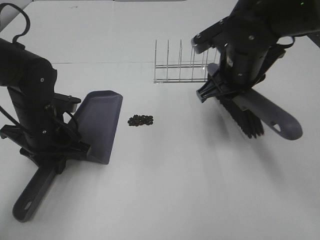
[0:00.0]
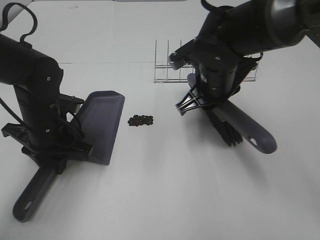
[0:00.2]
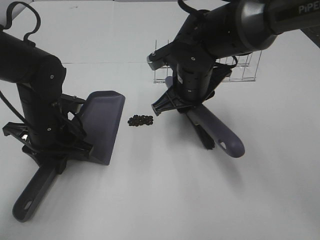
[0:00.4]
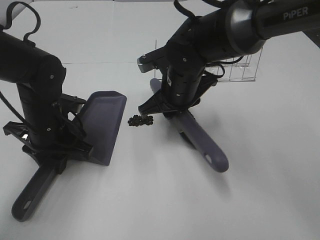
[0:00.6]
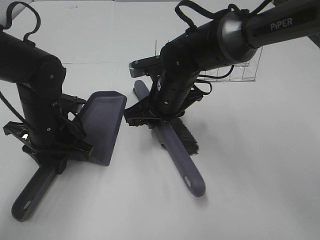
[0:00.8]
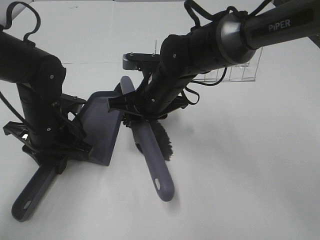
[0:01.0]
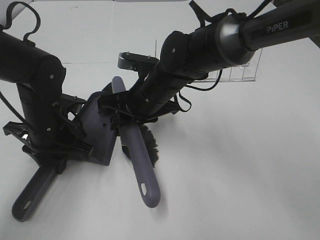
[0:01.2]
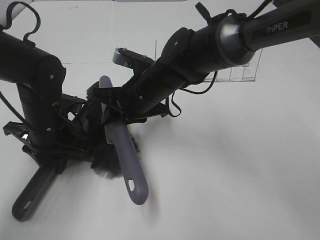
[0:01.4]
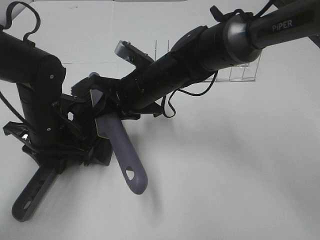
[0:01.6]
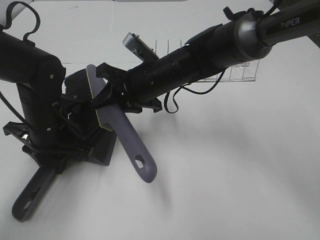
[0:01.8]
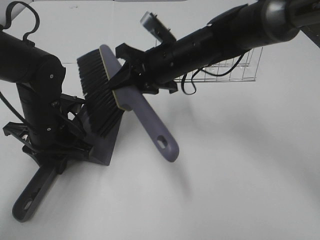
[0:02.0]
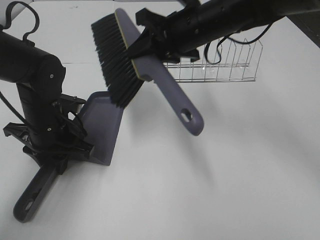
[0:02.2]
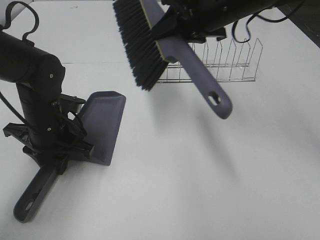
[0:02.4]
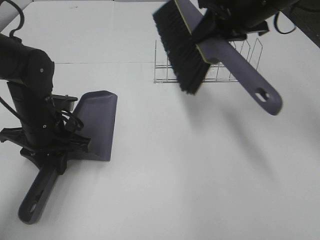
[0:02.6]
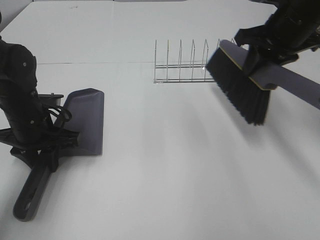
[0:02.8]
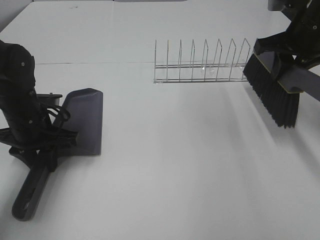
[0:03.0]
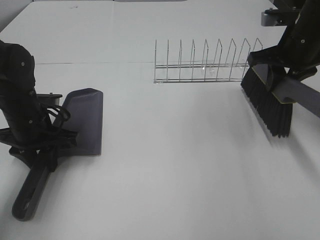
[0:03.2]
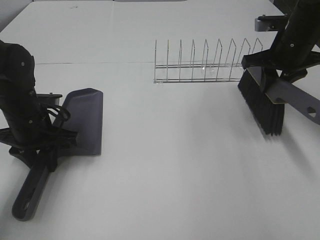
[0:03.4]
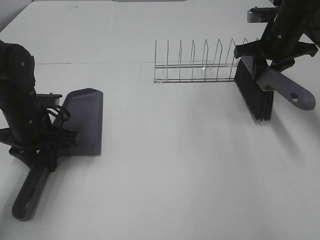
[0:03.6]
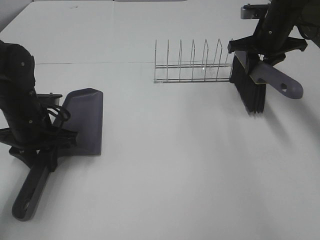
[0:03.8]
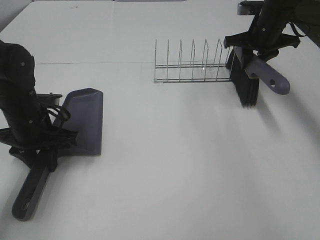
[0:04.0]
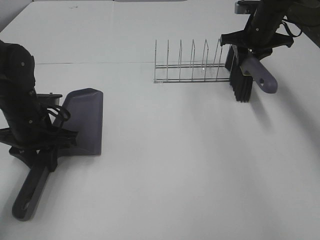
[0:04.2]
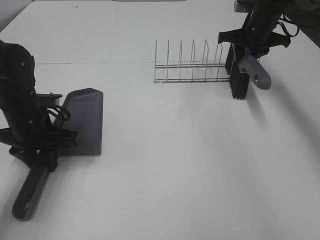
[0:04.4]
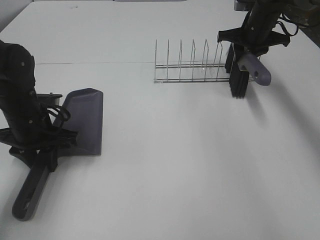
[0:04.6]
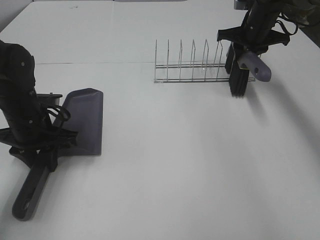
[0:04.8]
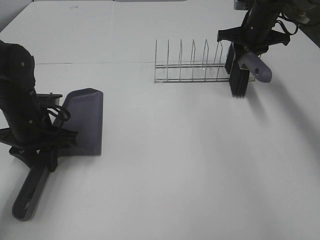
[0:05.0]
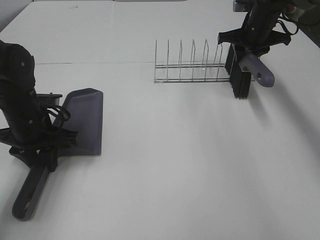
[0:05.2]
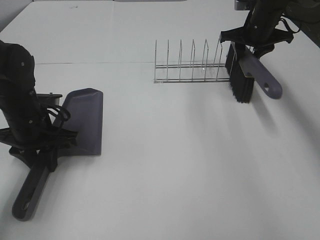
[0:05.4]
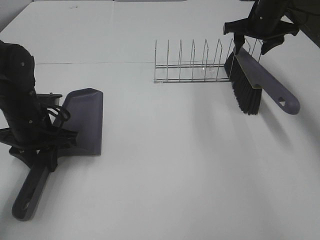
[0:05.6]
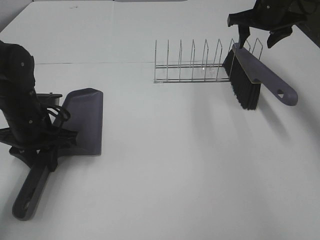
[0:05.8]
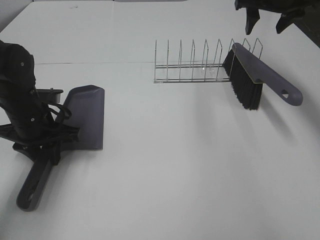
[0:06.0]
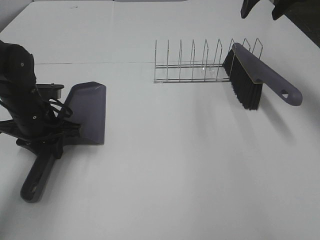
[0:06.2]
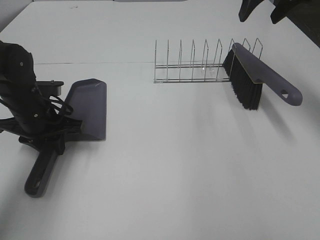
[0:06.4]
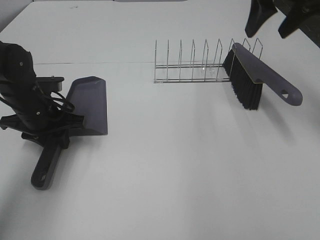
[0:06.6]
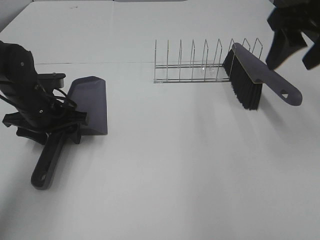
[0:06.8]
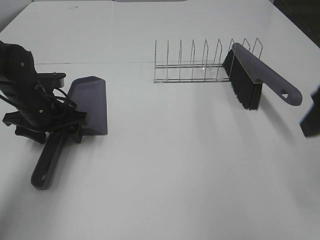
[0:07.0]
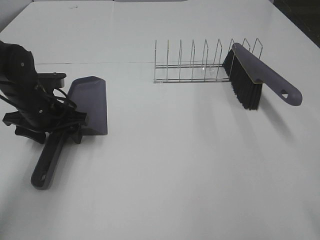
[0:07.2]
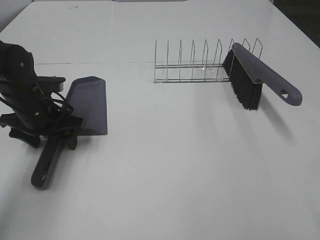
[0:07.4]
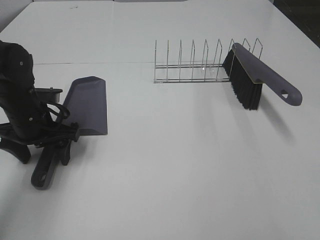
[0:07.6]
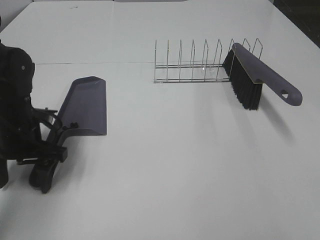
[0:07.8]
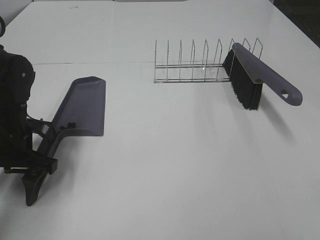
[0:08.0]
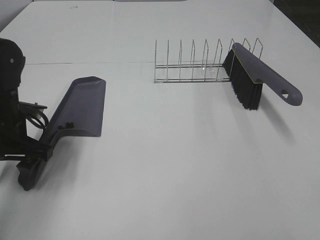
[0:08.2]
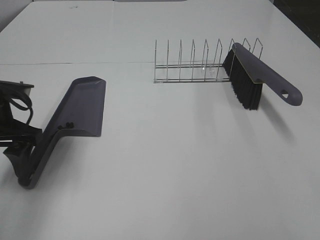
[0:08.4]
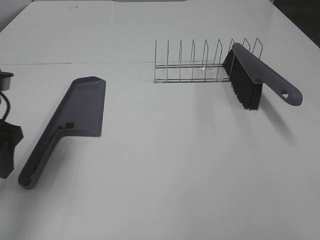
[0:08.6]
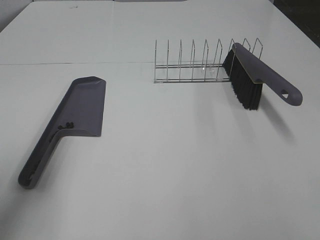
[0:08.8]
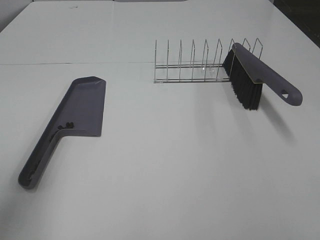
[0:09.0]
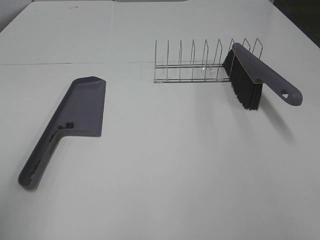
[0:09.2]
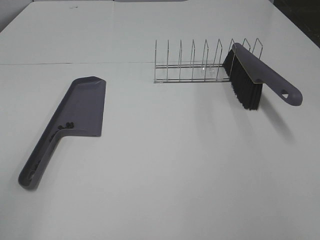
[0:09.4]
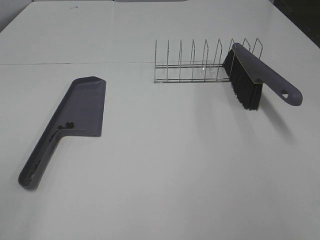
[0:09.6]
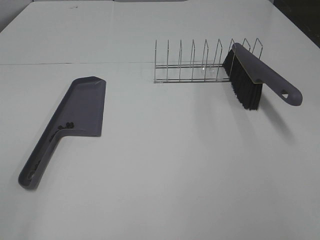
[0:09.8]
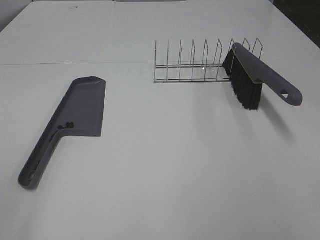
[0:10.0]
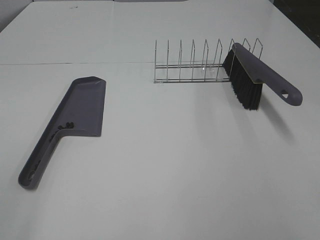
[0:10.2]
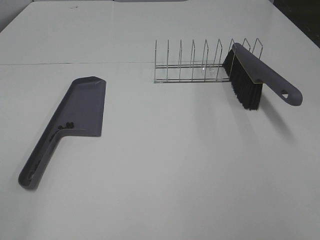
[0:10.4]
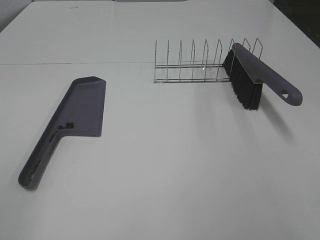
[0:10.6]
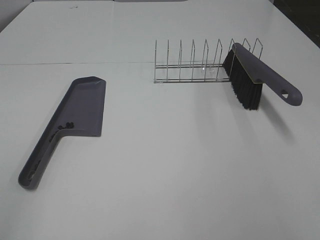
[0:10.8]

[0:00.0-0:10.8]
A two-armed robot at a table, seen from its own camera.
Task of the whole recording: Sweep Coffee Bean.
Step, 0:00.0 to 0:02.0: Right hand:sweep the coffee beans into the dustpan.
Step, 0:02.2 to 0:05.4: Right hand:place the broom on the rack.
0:00.0 to 0:01.6: The right gripper moves to the left, approximately 15 cm.
0:01.6 to 0:03.0: The right gripper moves to the right and upward, about 25 cm.
0:03.0 to 0:04.6: The right gripper heads forward and downward, covering approximately 15 cm.
0:04.6 to 0:06.2: The right gripper heads upward and backward, covering about 15 cm, and opens.
0:06.2 to 0:07.8: The right gripper travels backward by some 50 cm, while the left gripper opens up.
0:07.8 to 0:09.2: The left gripper shifts approximately 30 cm backward and upward.

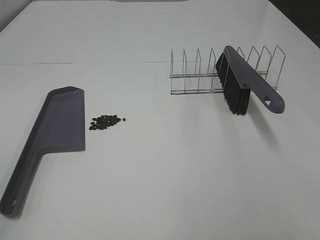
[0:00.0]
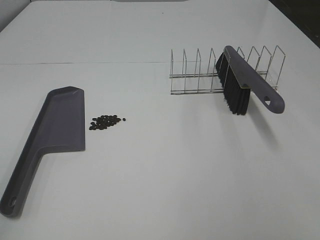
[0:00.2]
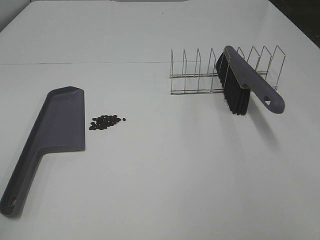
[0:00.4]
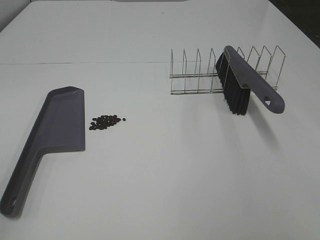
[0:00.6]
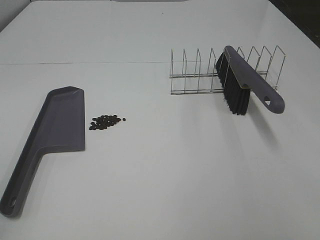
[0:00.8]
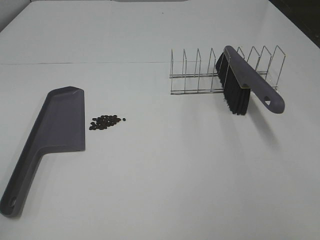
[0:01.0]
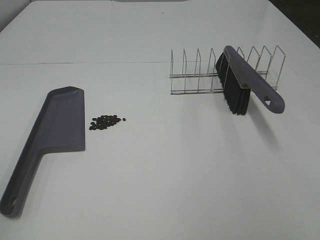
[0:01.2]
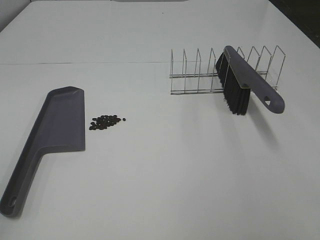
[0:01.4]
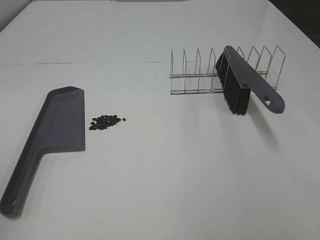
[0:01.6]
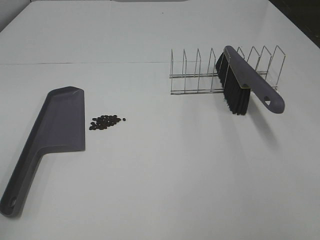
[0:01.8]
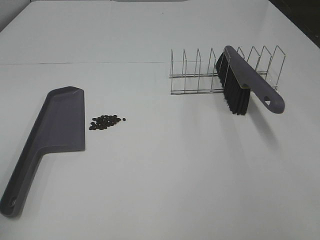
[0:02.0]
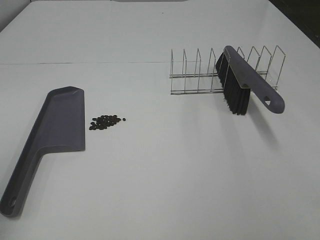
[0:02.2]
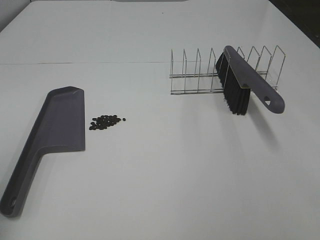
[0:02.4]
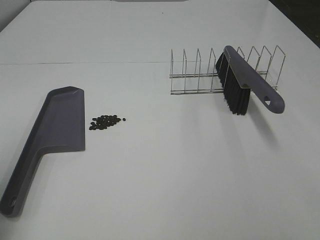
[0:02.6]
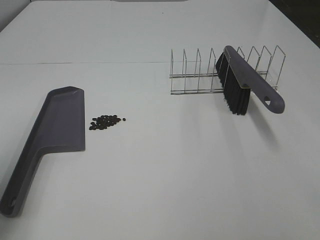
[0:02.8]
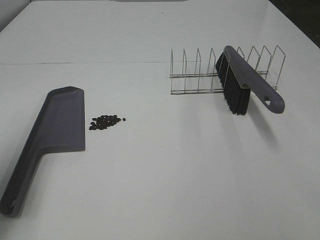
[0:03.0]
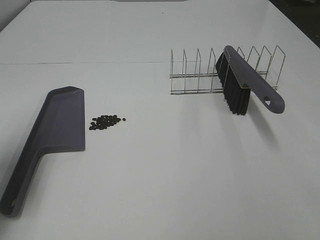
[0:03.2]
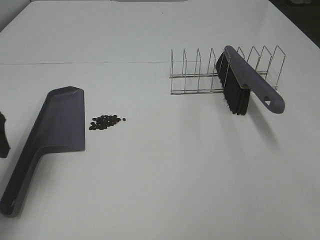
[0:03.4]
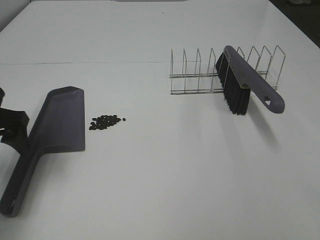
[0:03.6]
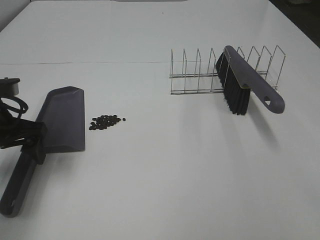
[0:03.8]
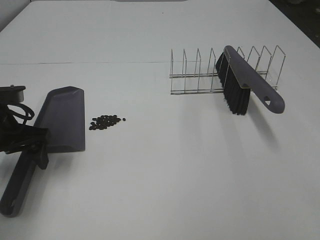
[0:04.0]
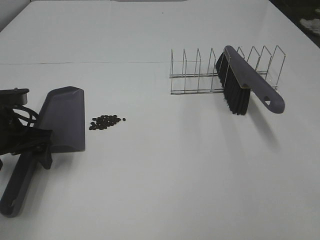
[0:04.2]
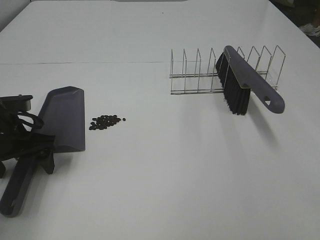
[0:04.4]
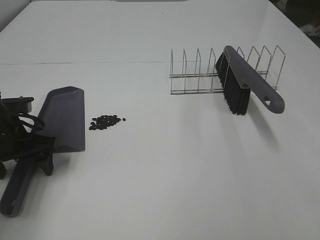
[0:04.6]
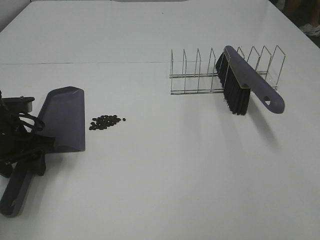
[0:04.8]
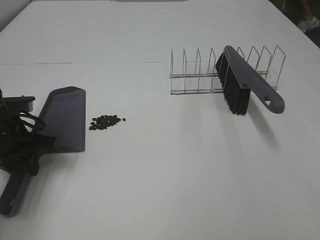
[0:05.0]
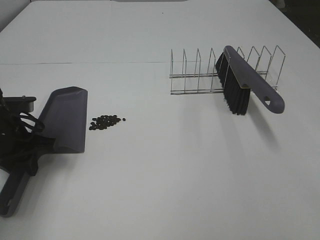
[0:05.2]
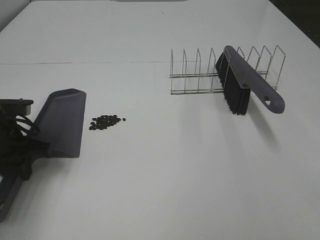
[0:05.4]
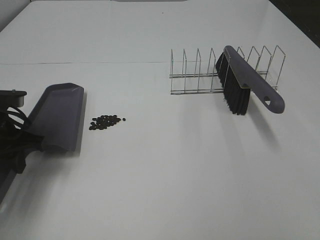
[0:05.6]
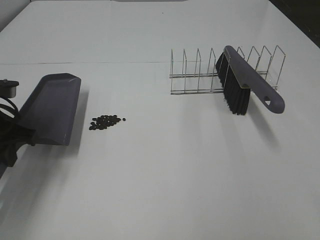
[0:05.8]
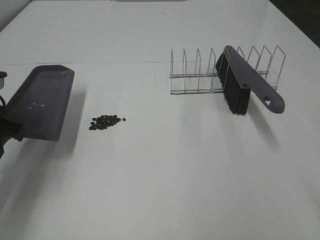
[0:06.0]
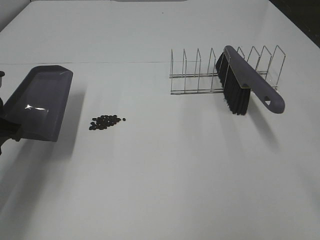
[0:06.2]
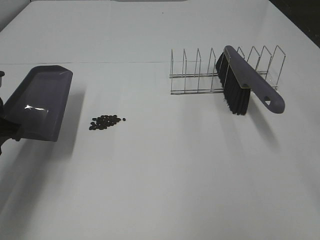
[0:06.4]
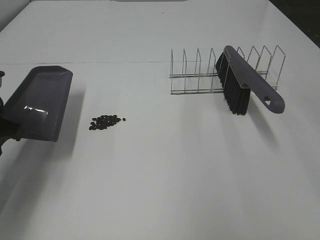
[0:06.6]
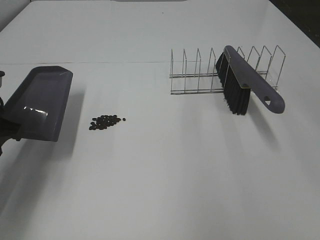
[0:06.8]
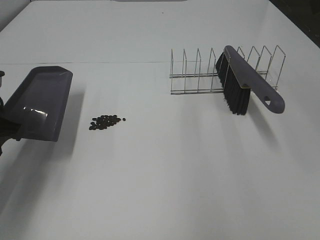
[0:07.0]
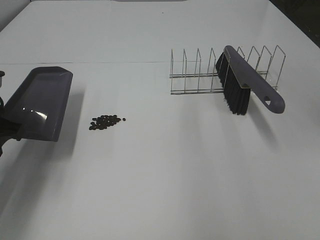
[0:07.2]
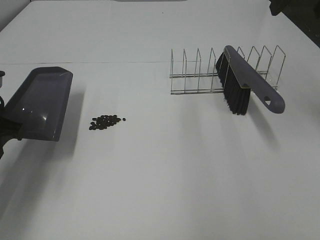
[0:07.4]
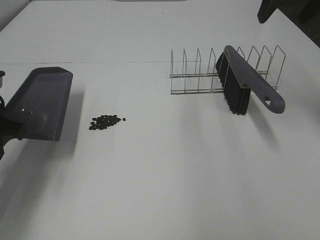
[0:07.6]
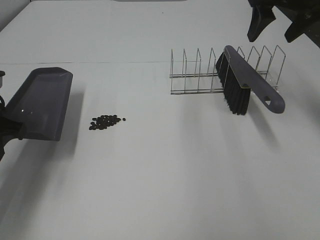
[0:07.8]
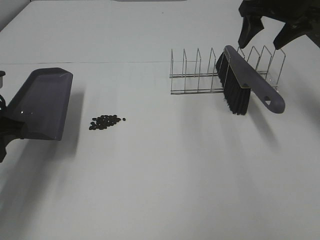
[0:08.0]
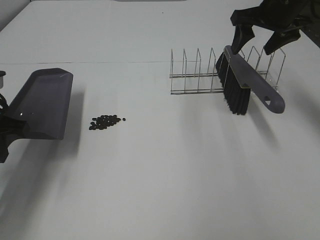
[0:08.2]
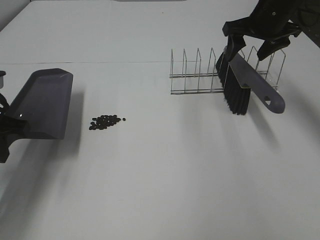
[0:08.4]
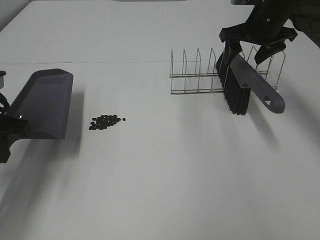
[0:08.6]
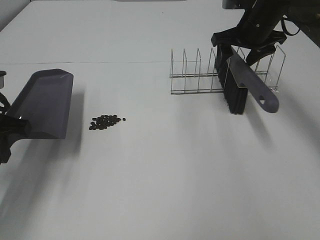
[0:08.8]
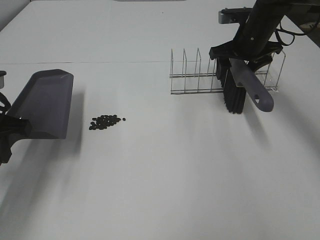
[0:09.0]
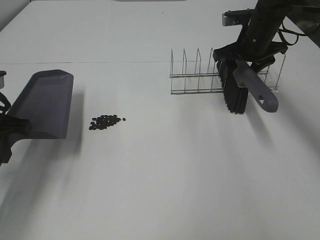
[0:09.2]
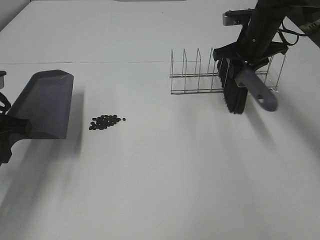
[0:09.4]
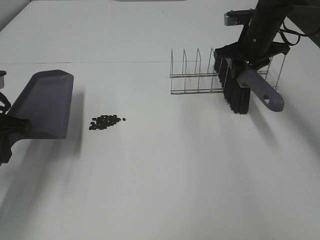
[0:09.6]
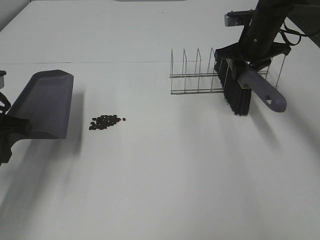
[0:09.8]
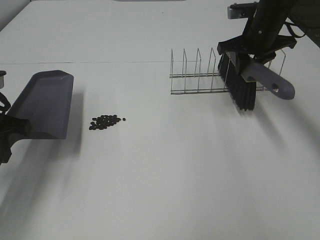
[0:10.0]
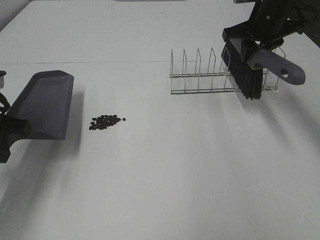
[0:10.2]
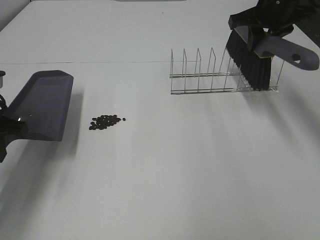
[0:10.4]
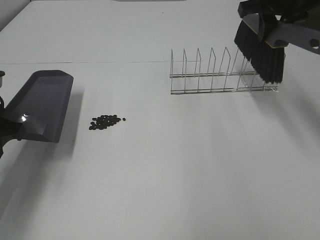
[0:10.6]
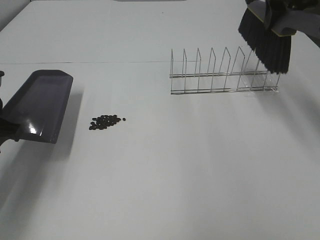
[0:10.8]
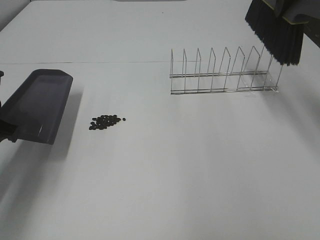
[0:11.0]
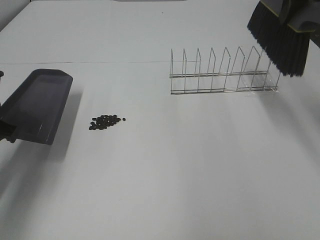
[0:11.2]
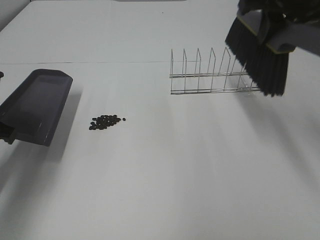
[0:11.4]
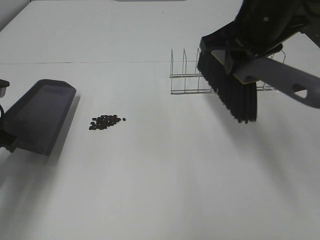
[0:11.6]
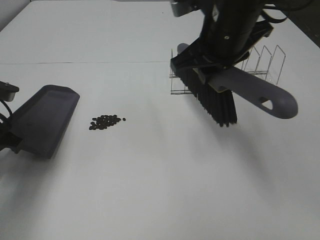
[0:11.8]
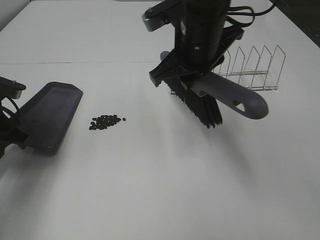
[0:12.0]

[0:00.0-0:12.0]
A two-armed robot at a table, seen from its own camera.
Task of the whole recording: Sweep Coffee Bean.
Step, 0:00.0 to 0:05.2: Left hand: grab the dustpan.
Step, 0:05.4 to 0:09.4: Right hand:grab the broom.
0:01.6 to 0:03.0: The left gripper is displaced forward by approximately 20 cm.
0:03.0 to 0:04.4: The left gripper moves downward, forward and to the right, some 15 cm.
0:04.4 to 0:06.0: The left gripper moves upward, some 5 cm, and closes up.
0:06.0 to 0:07.6: The right gripper heads forward, covering approximately 30 cm.
0:07.6 to 0:09.0: The right gripper shifts approximately 20 cm downward and forward.
0:09.0 to 0:10.4: The right gripper heads upward, covering roughly 10 cm, and closes its fingers.
0:10.4 to 0:12.0: The left gripper ends up roughly 5 cm from where it was; the right gripper shifts some 20 cm to the left and backward.
